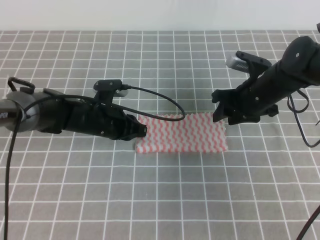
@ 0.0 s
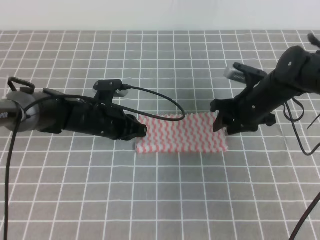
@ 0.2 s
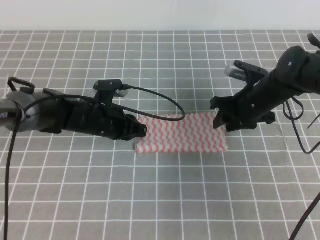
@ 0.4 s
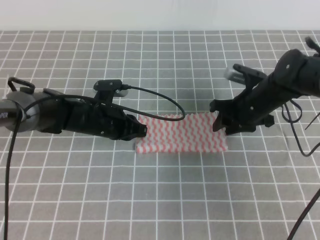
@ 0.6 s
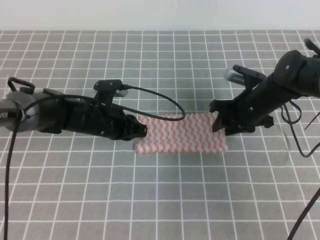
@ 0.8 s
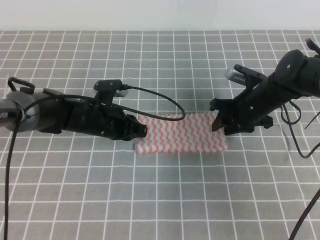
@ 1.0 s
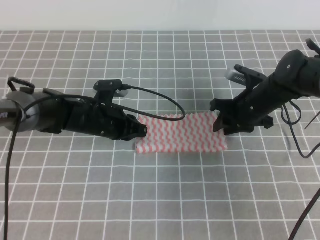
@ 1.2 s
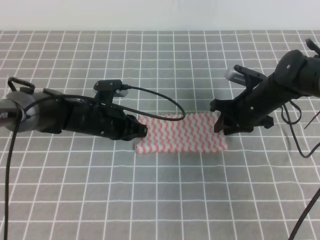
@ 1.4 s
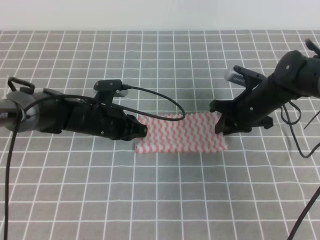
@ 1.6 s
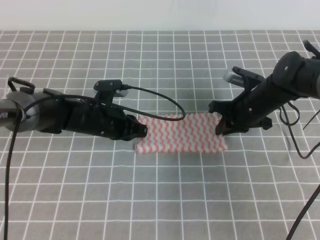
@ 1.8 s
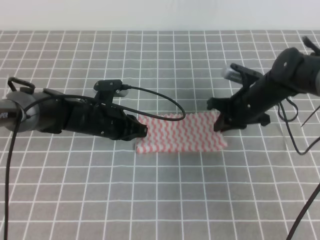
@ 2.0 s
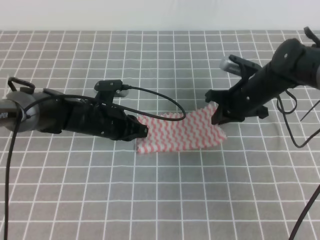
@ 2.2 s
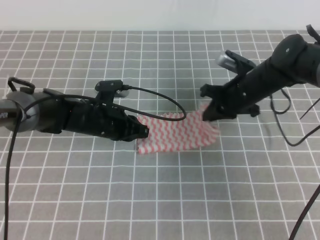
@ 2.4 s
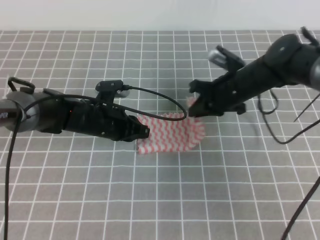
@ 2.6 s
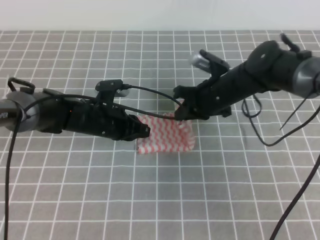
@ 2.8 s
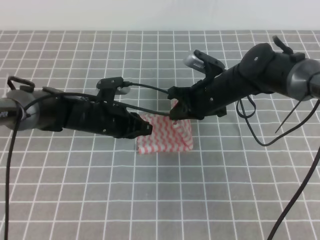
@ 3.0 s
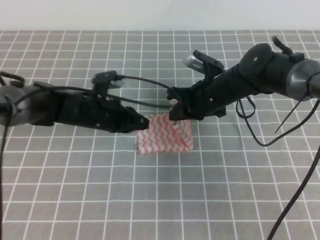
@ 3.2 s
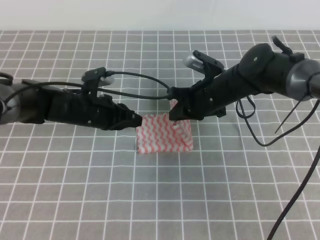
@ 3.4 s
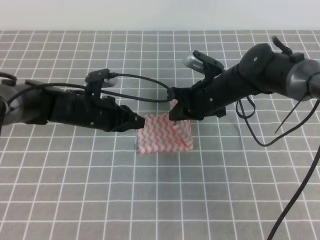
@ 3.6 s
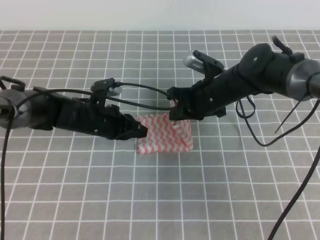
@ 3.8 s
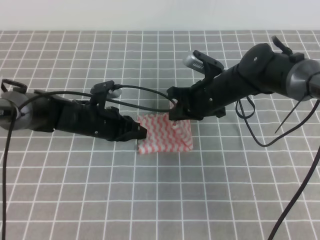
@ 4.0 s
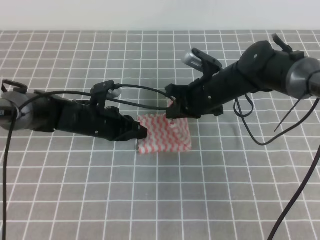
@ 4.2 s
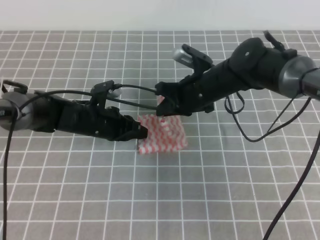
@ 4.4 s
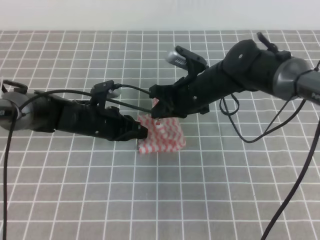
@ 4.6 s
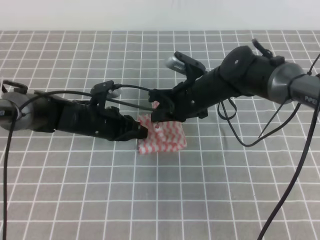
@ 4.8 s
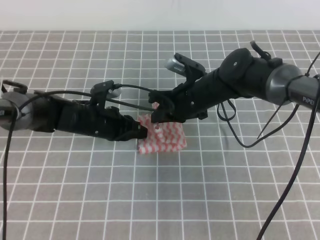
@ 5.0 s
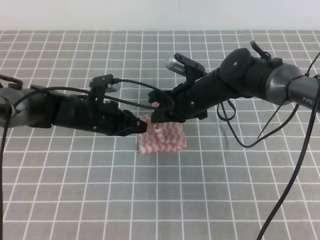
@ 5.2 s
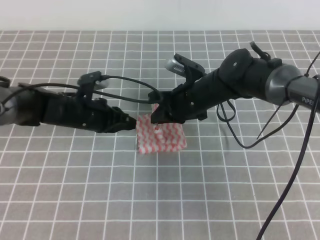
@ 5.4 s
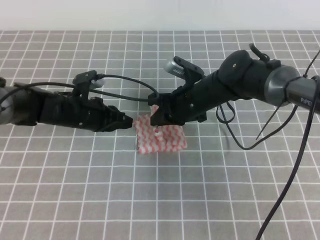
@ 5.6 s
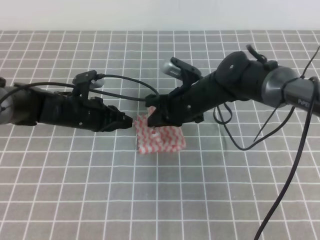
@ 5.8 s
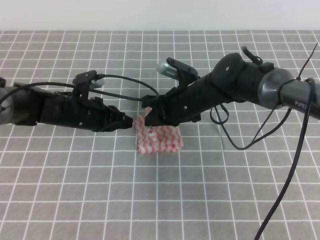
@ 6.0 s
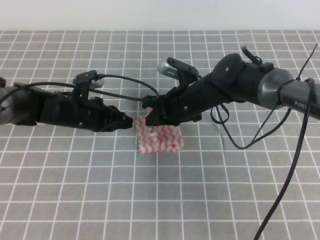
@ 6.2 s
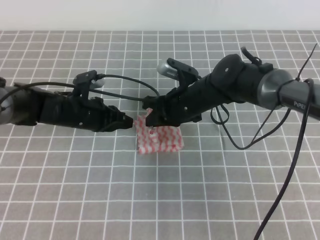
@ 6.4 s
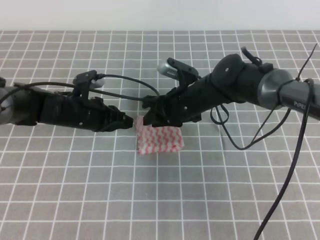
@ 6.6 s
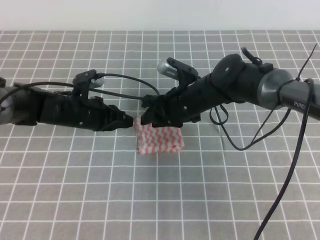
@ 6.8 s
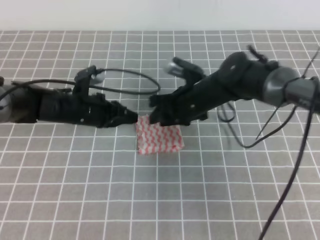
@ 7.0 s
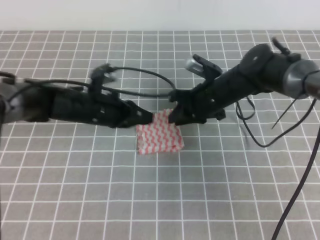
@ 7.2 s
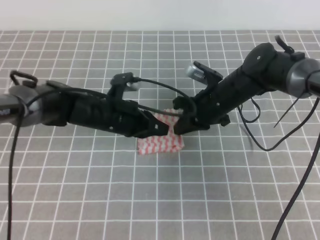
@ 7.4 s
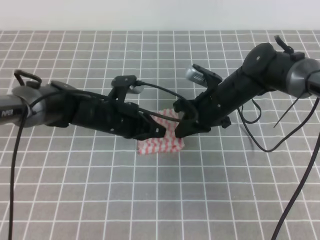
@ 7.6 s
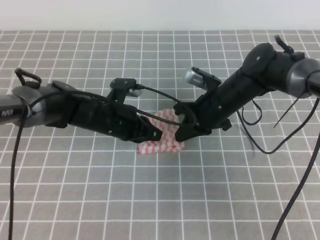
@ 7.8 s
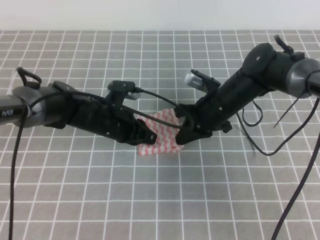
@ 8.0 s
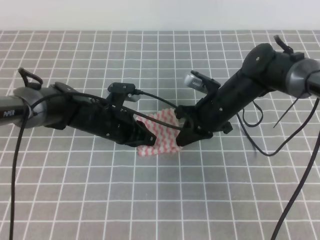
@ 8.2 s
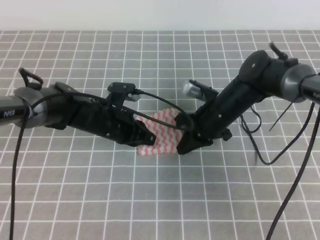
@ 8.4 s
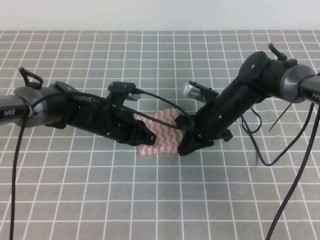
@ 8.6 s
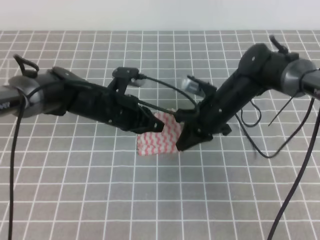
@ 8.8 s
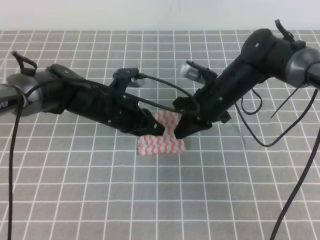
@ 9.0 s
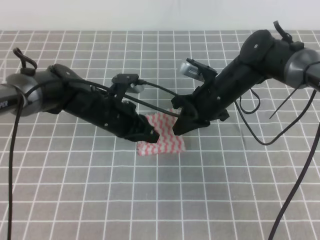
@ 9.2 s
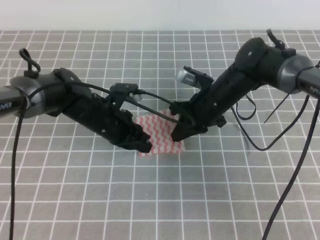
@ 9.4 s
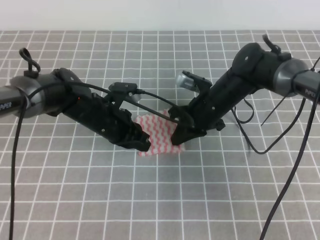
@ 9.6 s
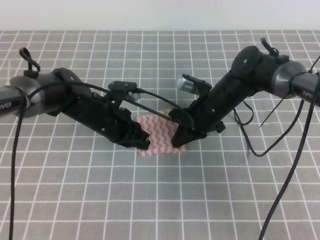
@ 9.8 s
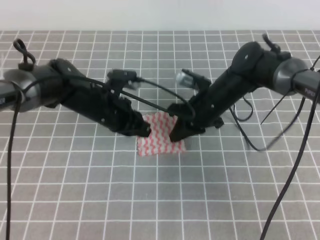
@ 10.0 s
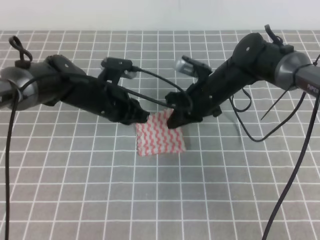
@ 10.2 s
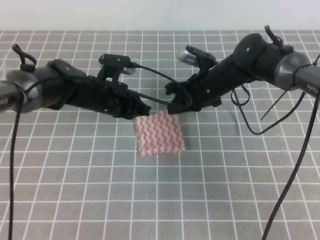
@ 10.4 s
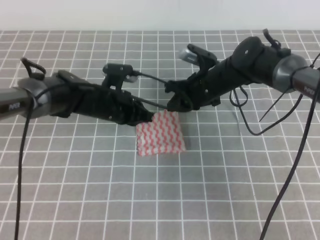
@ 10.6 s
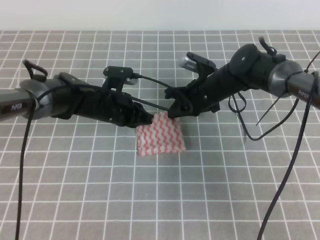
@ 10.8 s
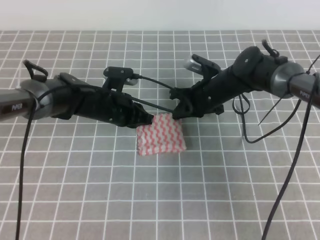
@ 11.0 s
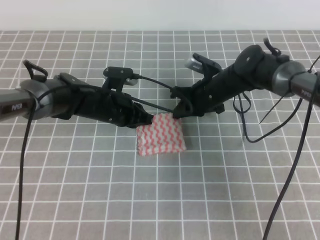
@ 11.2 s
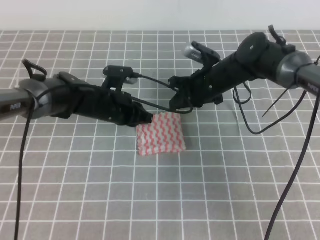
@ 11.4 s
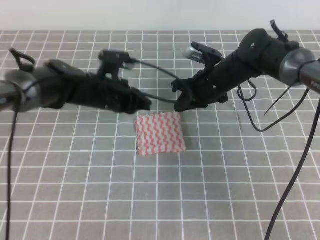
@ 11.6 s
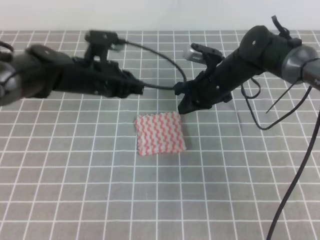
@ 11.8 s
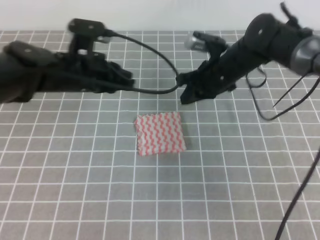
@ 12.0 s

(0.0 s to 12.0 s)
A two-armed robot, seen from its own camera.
0.0 s - 1.6 s: The right gripper closes up.
1.6 s - 3.0 s: The right gripper goes approximately 5 cm to the left, and closes up.
3.0 s - 6.0 s: The grippers stay close to where they were, moving slightly.
6.0 s - 7.6 s: The grippers both shift to the right by some 5 cm. The right gripper opens, then closes once more.
7.6 s - 10.4 s: The grippers move only a little.
10.4 s - 12.0 s: The left gripper travels upward by roughly 10 cm.

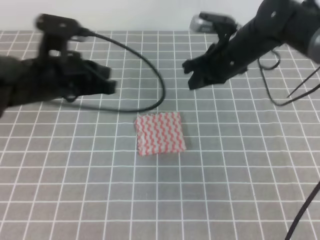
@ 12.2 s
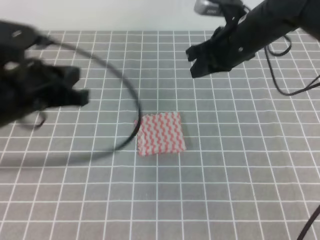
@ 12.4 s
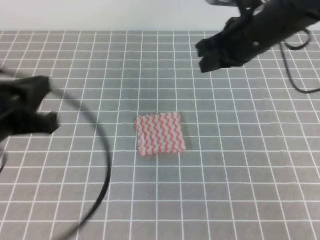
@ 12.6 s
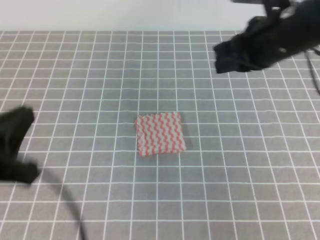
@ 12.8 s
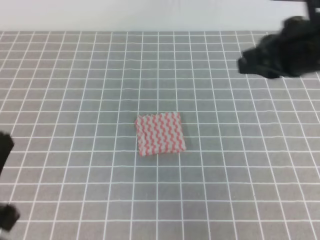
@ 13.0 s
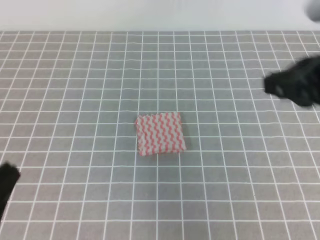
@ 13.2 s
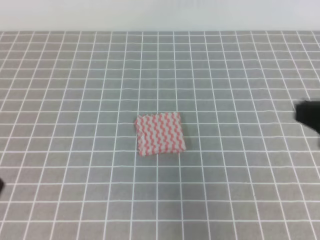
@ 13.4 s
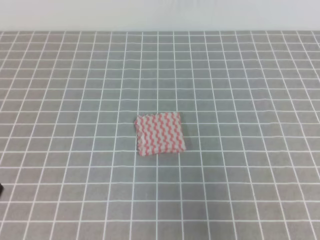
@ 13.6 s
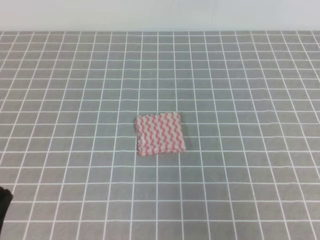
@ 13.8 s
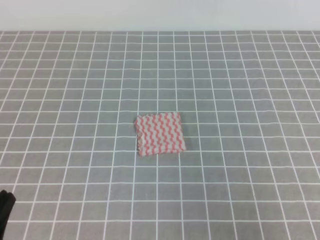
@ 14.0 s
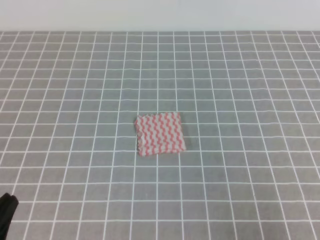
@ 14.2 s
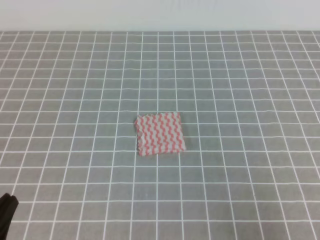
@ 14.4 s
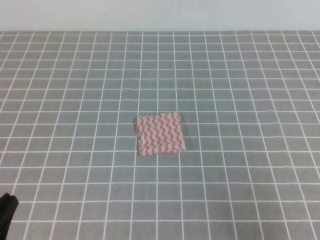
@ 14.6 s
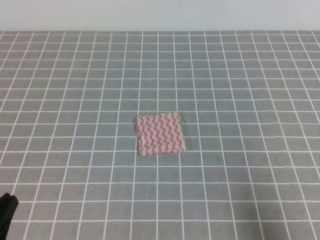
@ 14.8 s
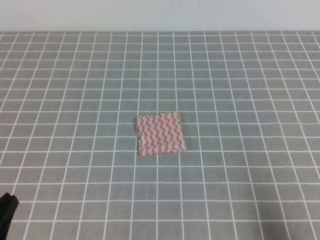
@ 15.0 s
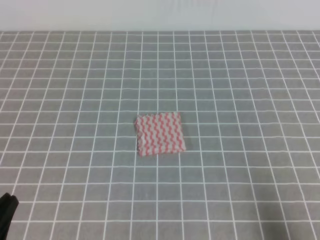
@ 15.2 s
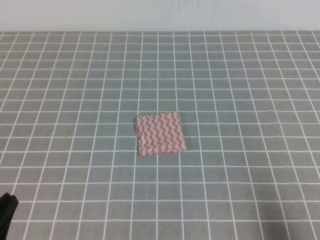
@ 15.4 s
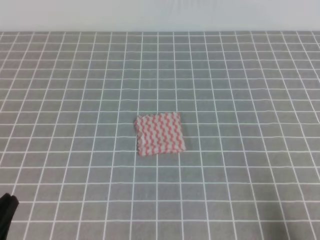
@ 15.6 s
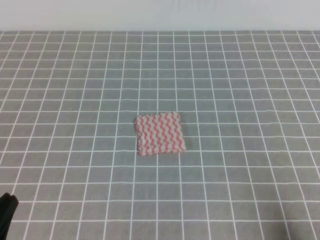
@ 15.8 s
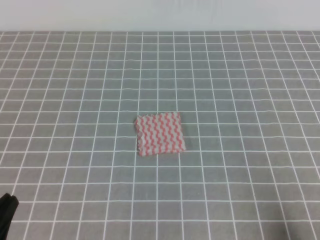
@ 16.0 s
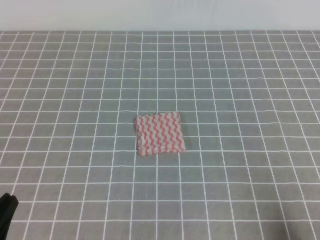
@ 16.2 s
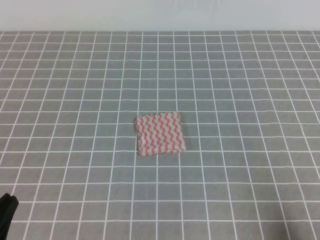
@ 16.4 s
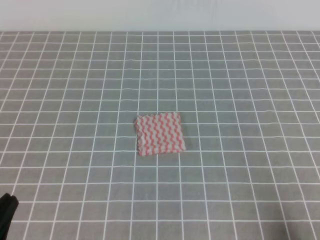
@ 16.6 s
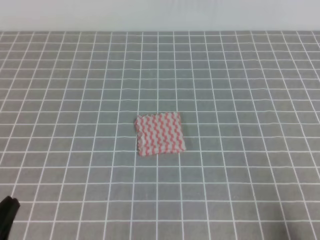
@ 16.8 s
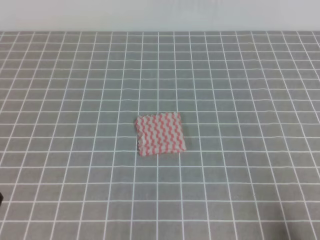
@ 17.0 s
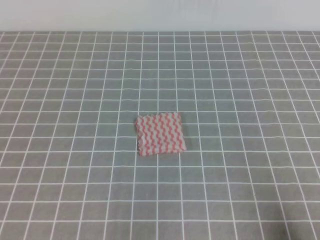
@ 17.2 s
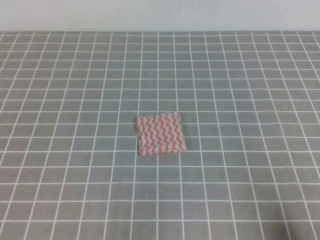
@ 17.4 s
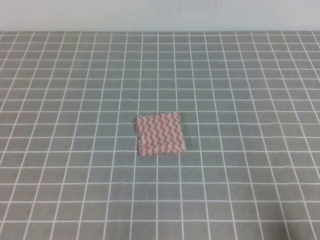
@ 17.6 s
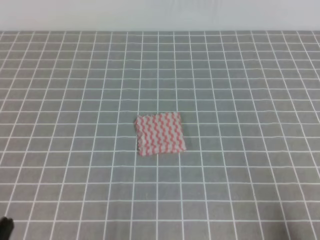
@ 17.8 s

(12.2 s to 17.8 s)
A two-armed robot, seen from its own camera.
Step, 12.2 s - 17.8 s: Fold the towel.
12.2 s - 13.6 s: The right gripper shifts approximately 35 cm backward and to the right; the left gripper shifts about 25 cm backward.
13.6 s - 15.0 s: The right gripper goes roughly 10 cm downward.
